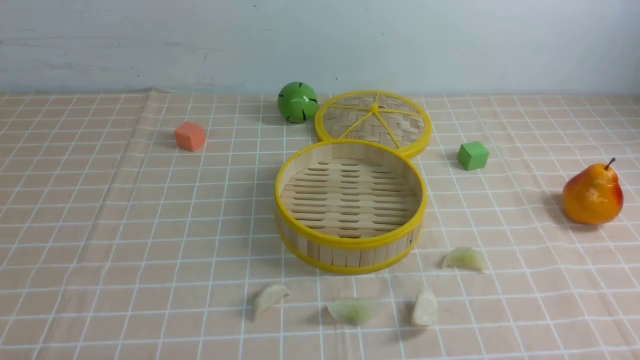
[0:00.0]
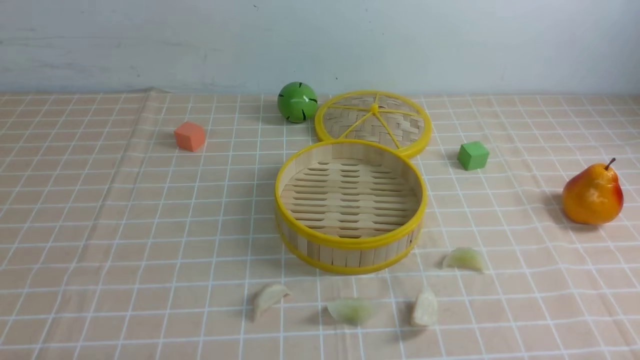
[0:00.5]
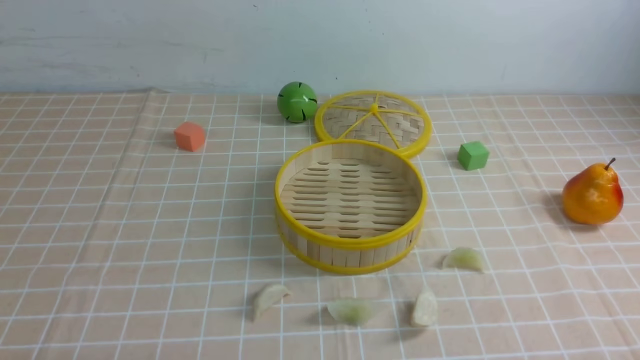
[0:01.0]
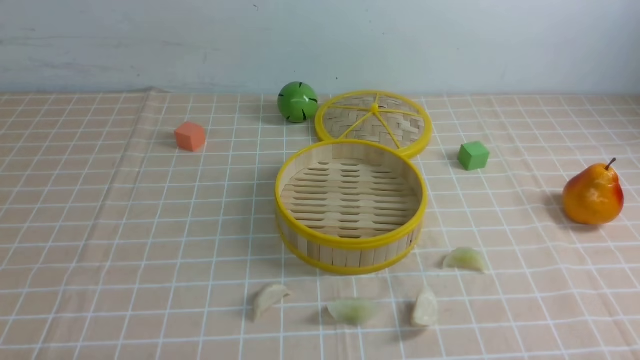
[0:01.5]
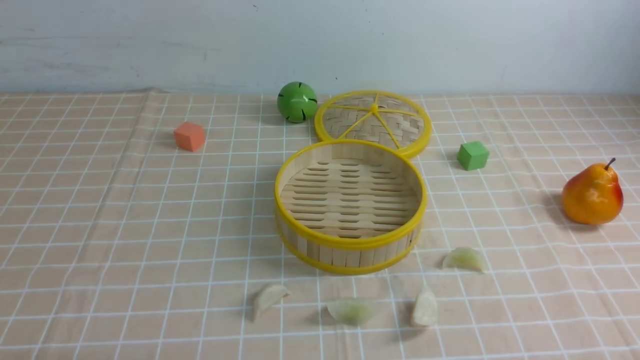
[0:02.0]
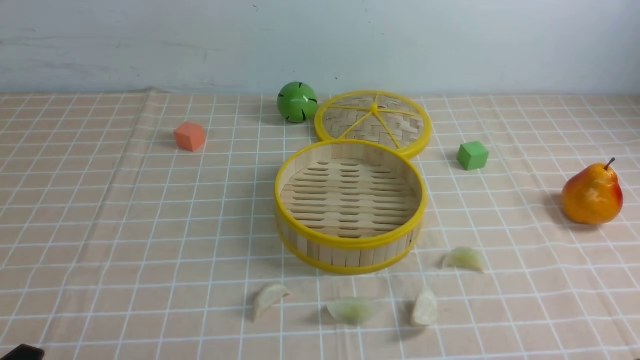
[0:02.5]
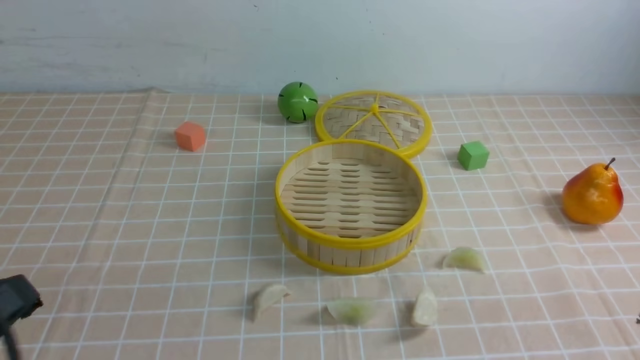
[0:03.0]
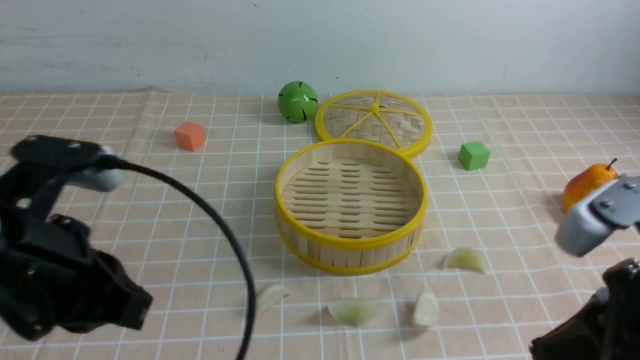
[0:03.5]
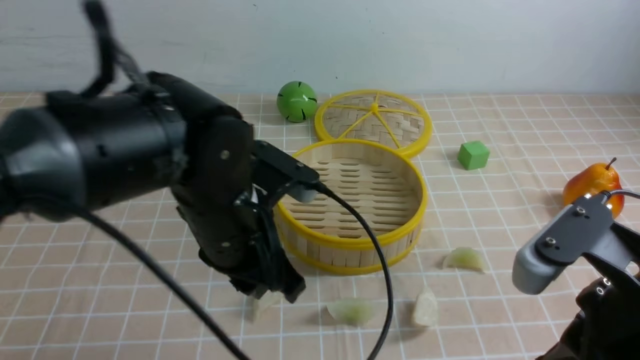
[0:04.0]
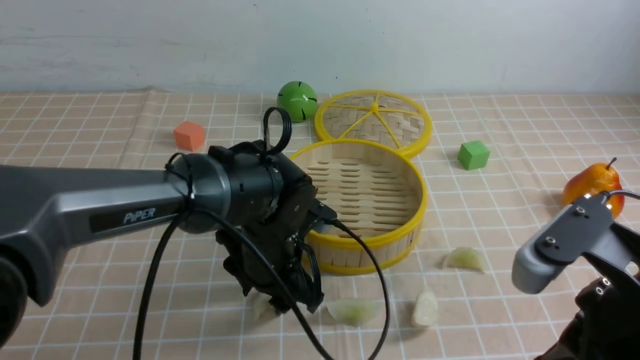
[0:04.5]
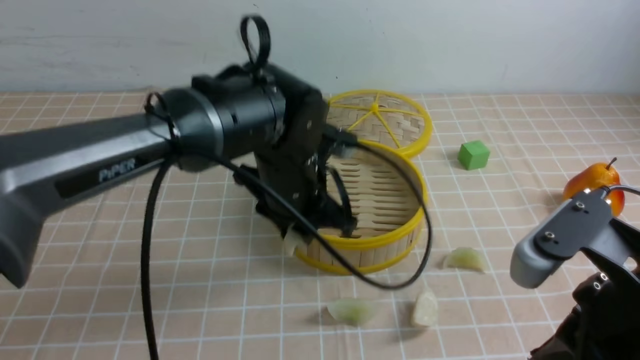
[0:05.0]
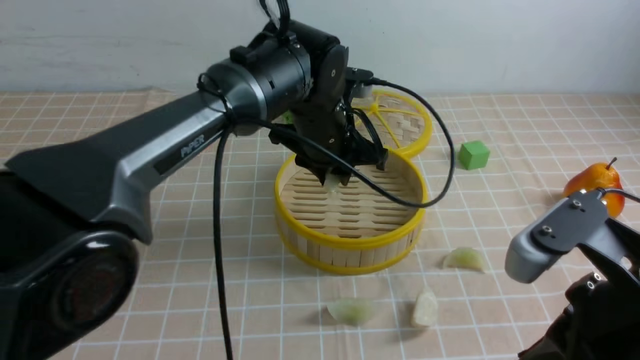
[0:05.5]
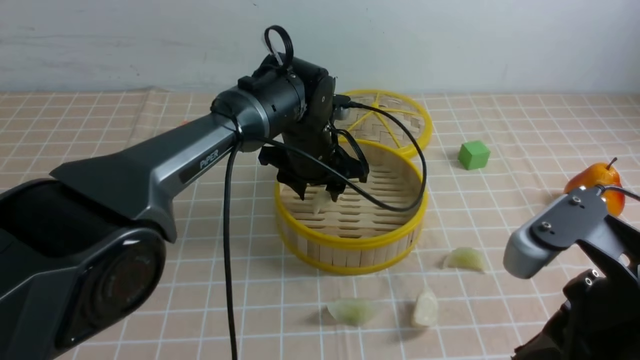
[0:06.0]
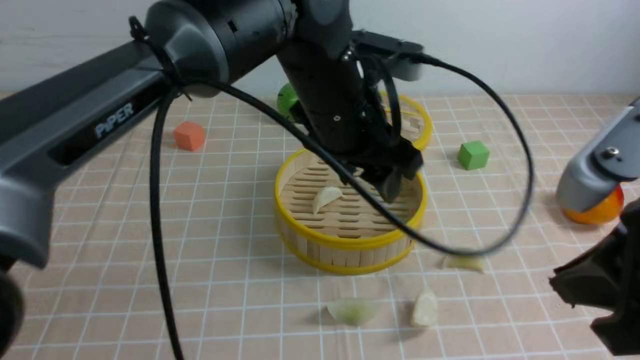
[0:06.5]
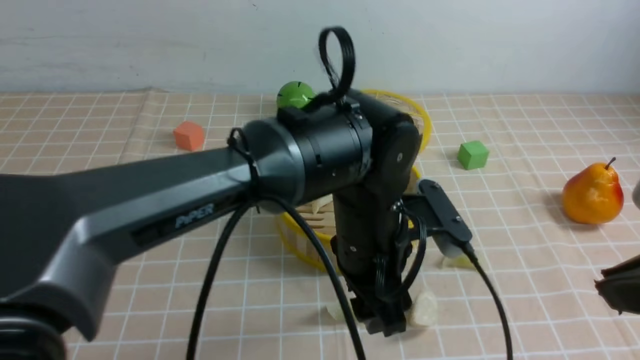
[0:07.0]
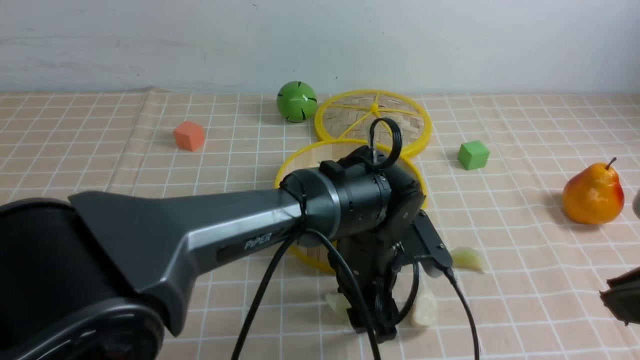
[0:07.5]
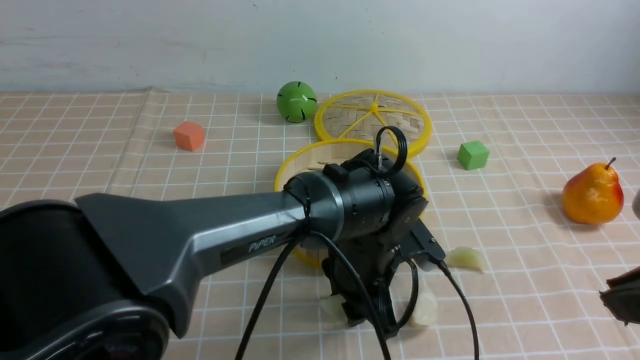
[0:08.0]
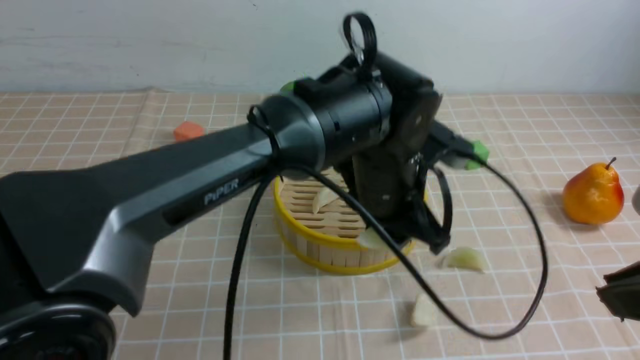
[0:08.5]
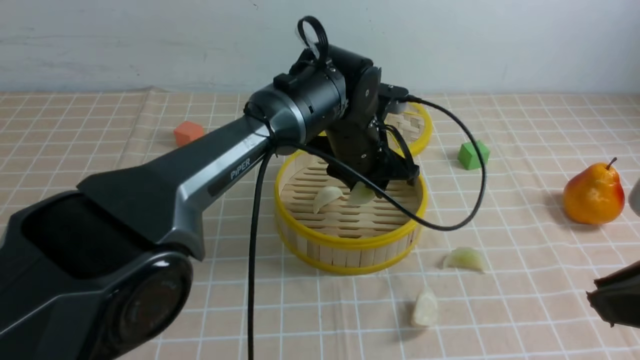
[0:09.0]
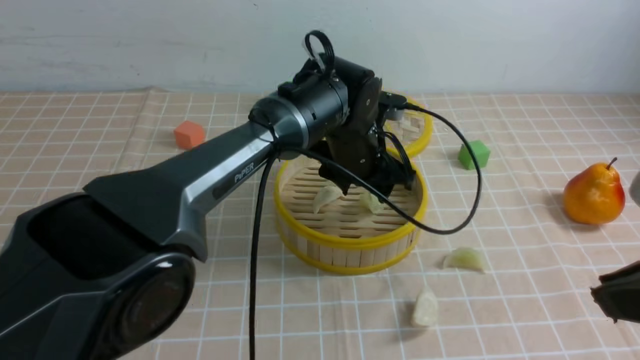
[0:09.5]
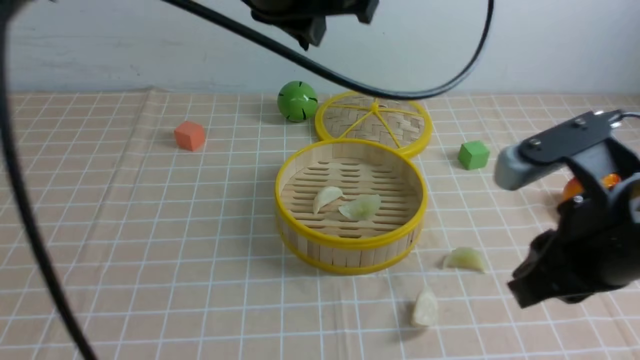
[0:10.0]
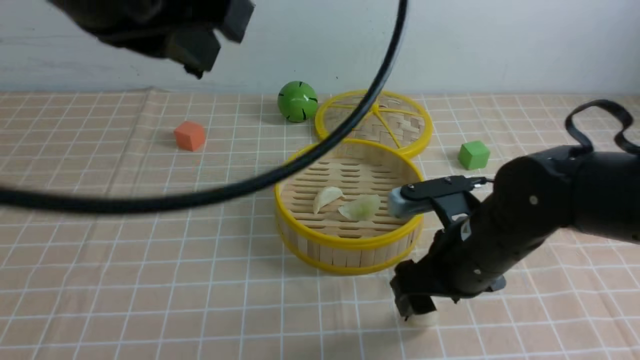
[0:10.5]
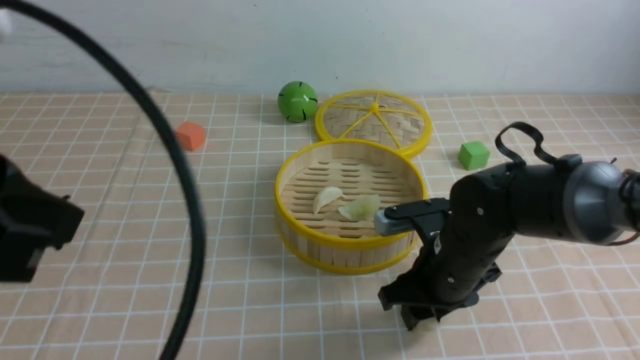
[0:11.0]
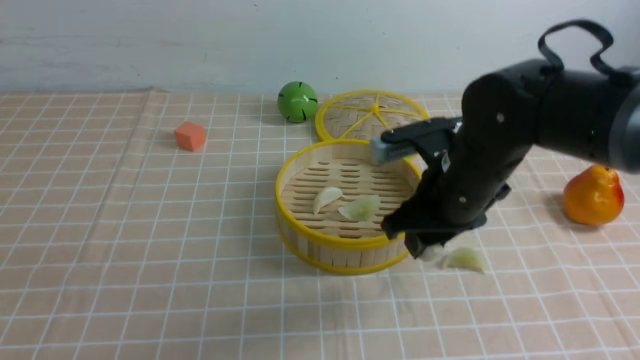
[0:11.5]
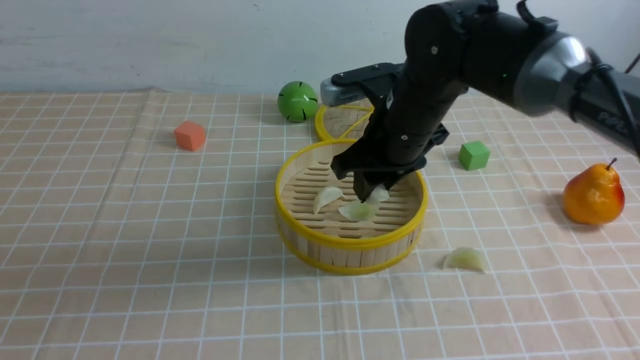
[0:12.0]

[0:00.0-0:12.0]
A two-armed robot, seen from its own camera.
Task of the whole recording: put the dumplings into the steamer on the table with the brown tablecloth.
Step, 0:00.0 to 0:04.5: use the left arm to grab a dumpling.
Step, 0:05.0 to 0:06.0: use the left arm to put the dumpling into the steamer.
Step, 0:06.5 to 0:08.0: use the left arm to grab a dumpling.
Step, 0:08.5 to 0:09.5: use the left arm to put the dumpling into the steamer.
Step, 0:10.0 to 0:11.0: use the right arm to grab a dumpling.
0:02.0 to 0:04.0: The left gripper travels forward, to the right and upward by some 30 cm; the right gripper moves upward, forward and to the left, approximately 20 cm, and closes its fingers.
0:04.0 to 0:06.0: The left gripper heads forward and to the right, covering some 20 cm, and opens its fingers.
0:06.0 to 0:08.0: The left gripper moves backward and to the right, some 15 cm; the right gripper shifts about 5 cm upward.
0:08.0 to 0:10.0: The right gripper is displaced forward by roughly 5 cm. Meanwhile the left gripper goes about 25 cm upward, and closes up.
0:10.0 to 0:12.0: The right gripper goes roughly 25 cm forward and to the left, and opens, then closes again. Meanwhile the left gripper goes some 35 cm backward and to the left.

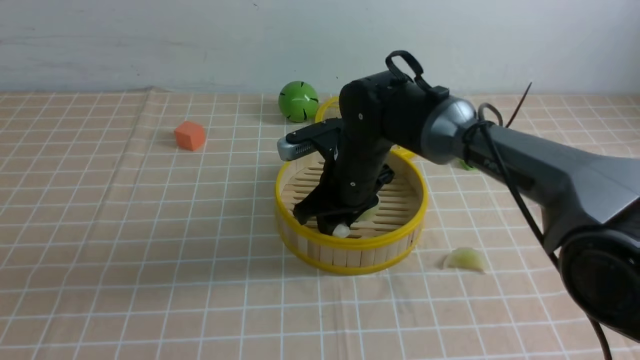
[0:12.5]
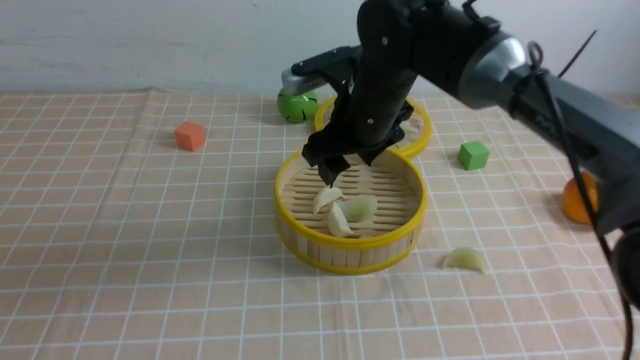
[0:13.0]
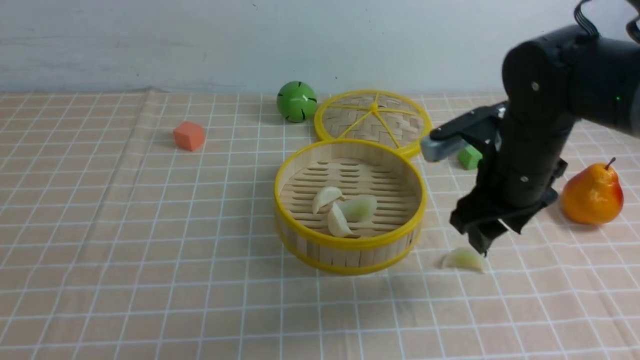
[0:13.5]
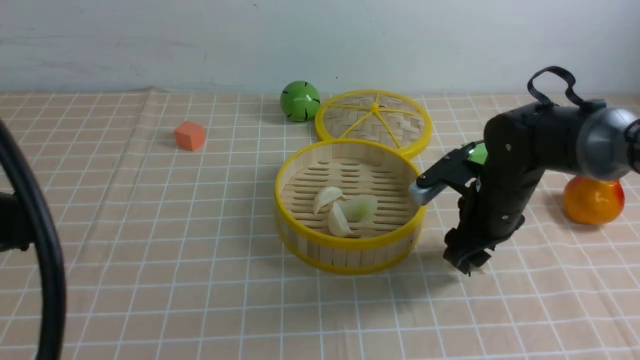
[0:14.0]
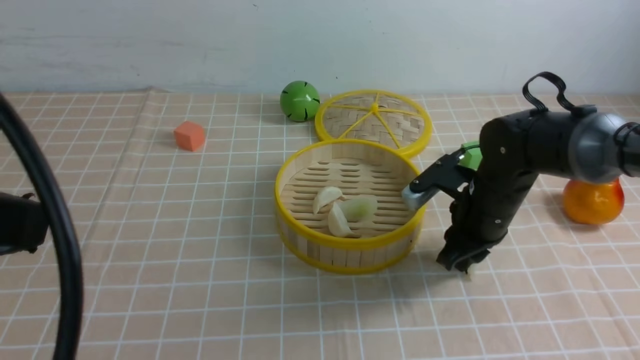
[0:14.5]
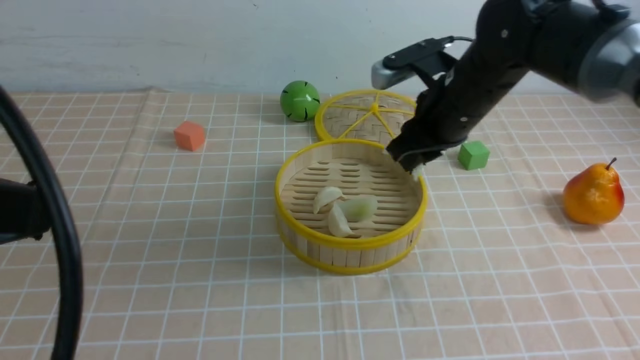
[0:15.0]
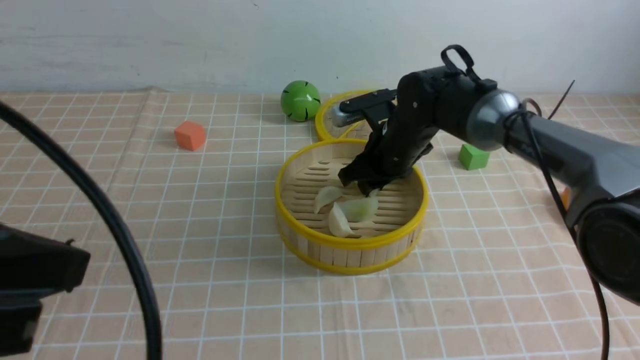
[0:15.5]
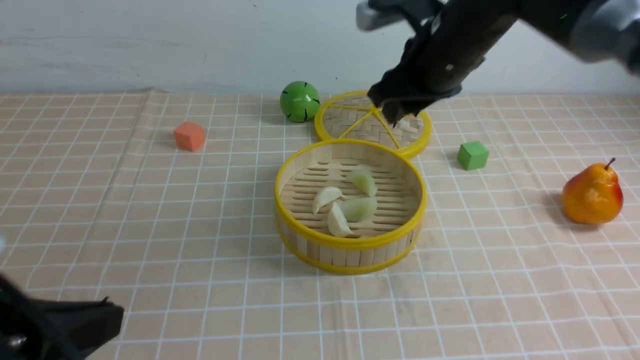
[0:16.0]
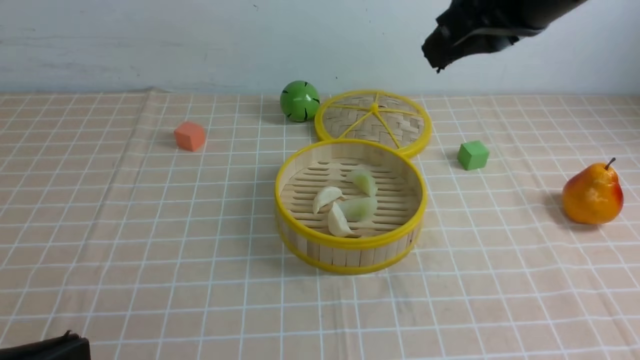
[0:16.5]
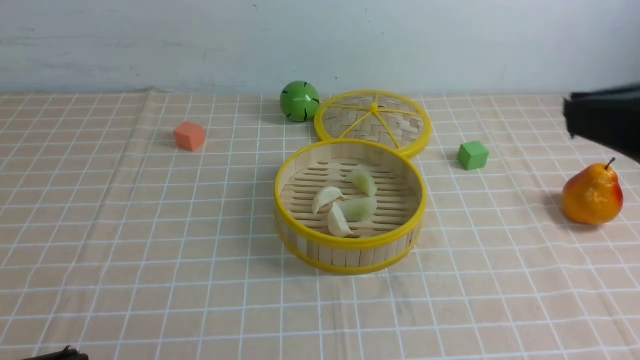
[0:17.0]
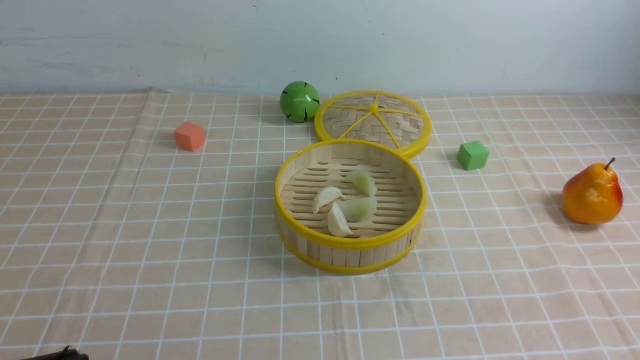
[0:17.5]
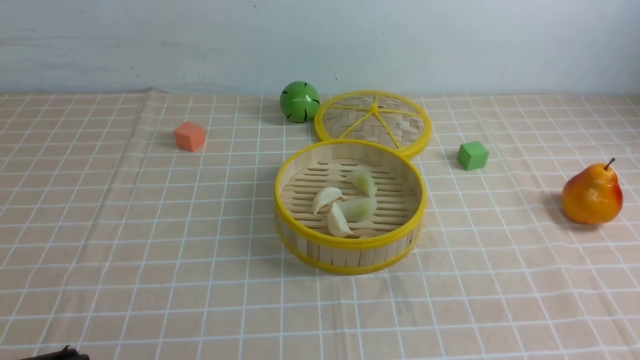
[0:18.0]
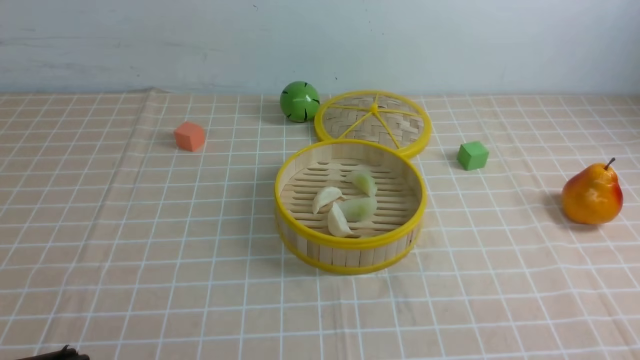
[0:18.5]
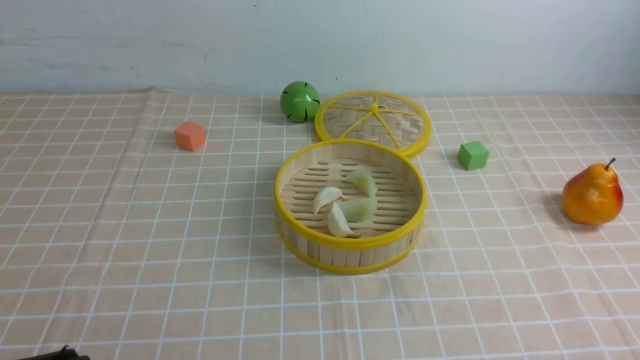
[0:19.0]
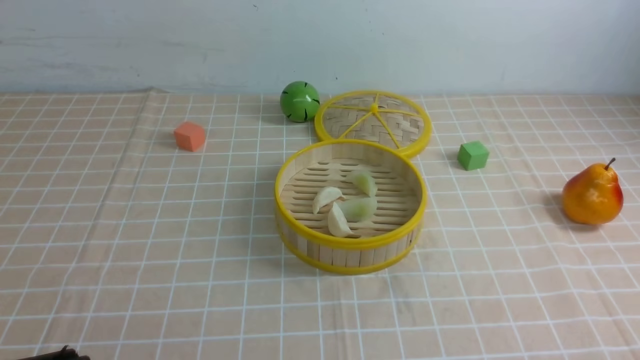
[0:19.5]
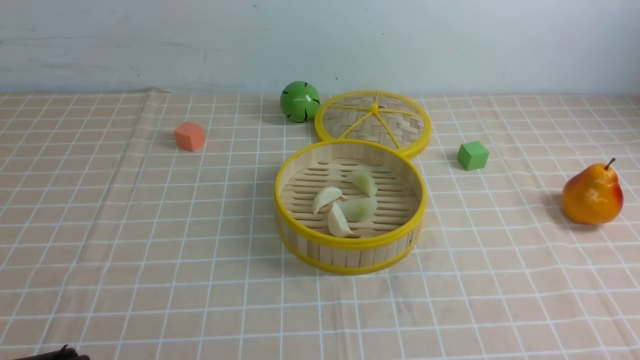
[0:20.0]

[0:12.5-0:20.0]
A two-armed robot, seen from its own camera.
Task of the whole recording: put the dumplings into the steamer on the table with the brown tablecloth.
Step, 0:13.0 to 0:14.0: use the right arm to grab a dumpling.
Step, 0:15.0 to 0:15.5: use the right arm to put the dumpling into the steamer.
0:12.5 to 0:14.5: The right gripper moves to the right, roughly 15 cm, and opens, then closes once more.
0:14.5 to 0:16.5: The left gripper is displaced downward by some 15 cm, while the right gripper moves up and down over some 30 cm, changing direction 2 times, and closes.
0:16.5 to 0:18.0: The right gripper goes about 25 cm backward and to the right.
